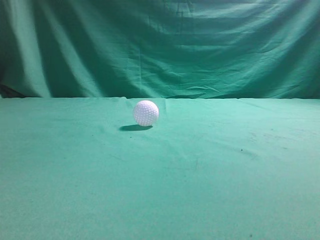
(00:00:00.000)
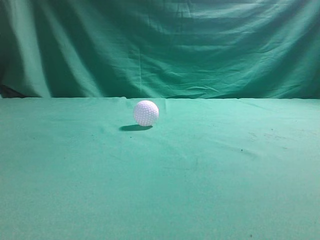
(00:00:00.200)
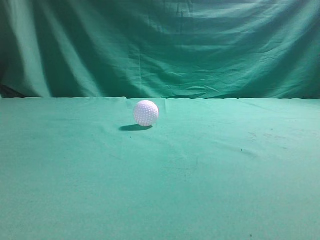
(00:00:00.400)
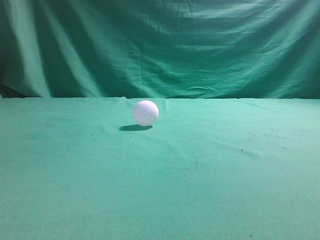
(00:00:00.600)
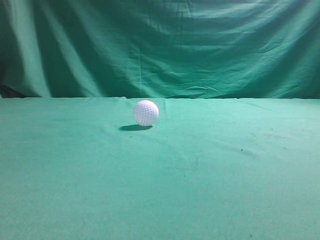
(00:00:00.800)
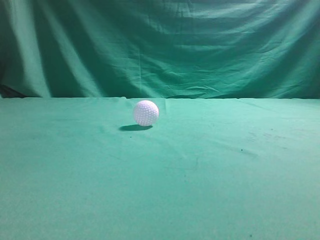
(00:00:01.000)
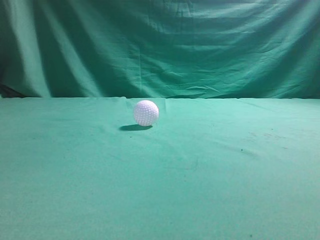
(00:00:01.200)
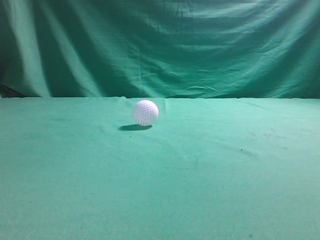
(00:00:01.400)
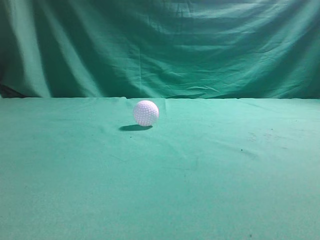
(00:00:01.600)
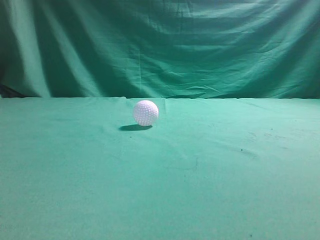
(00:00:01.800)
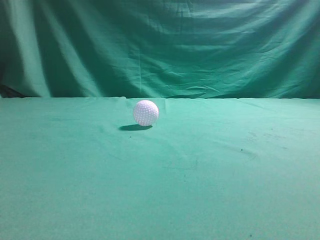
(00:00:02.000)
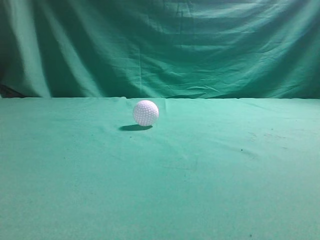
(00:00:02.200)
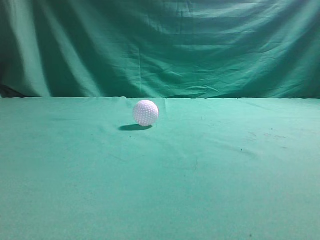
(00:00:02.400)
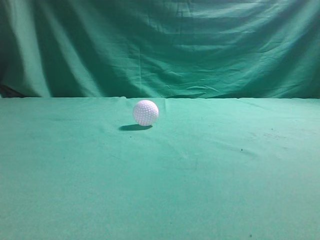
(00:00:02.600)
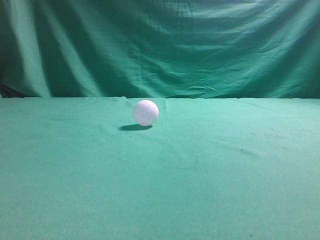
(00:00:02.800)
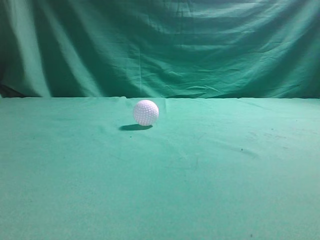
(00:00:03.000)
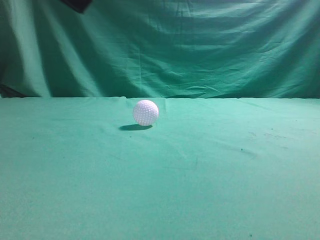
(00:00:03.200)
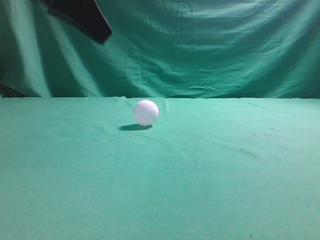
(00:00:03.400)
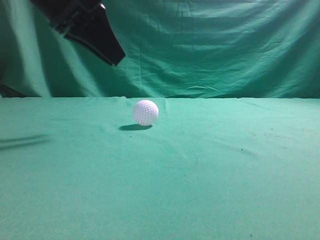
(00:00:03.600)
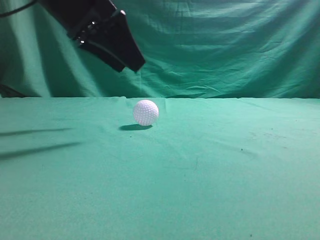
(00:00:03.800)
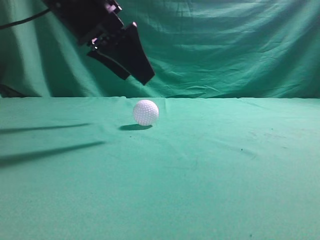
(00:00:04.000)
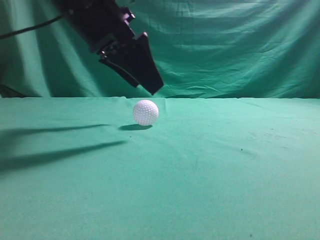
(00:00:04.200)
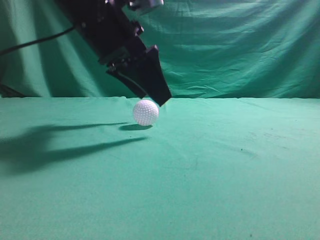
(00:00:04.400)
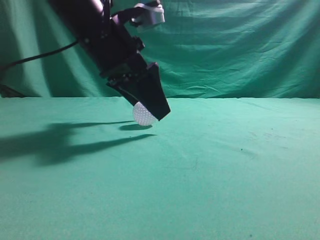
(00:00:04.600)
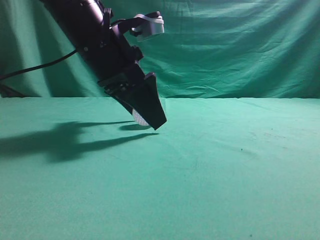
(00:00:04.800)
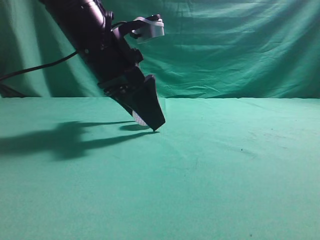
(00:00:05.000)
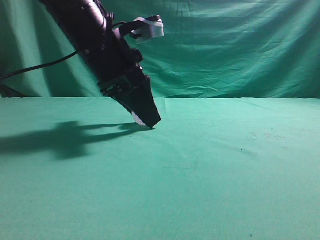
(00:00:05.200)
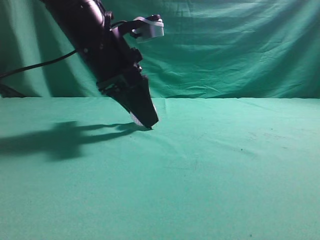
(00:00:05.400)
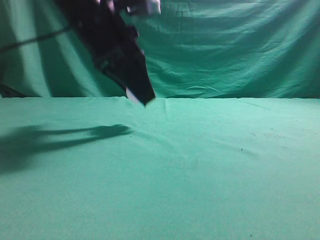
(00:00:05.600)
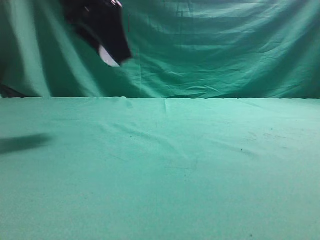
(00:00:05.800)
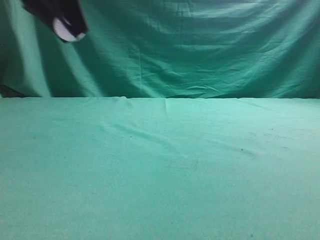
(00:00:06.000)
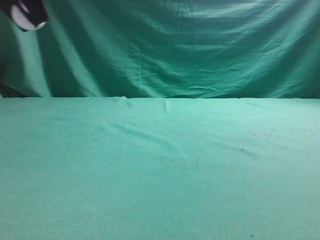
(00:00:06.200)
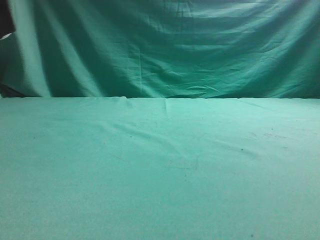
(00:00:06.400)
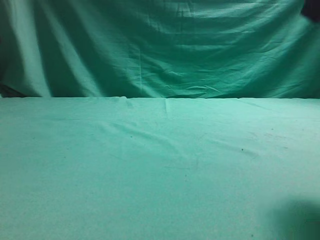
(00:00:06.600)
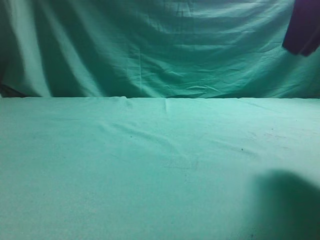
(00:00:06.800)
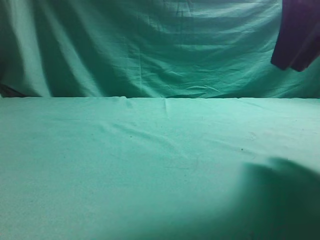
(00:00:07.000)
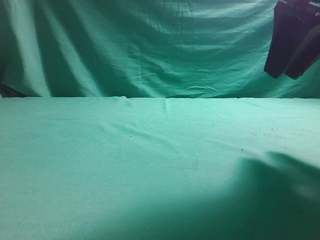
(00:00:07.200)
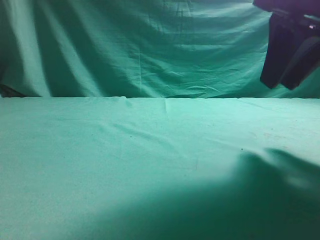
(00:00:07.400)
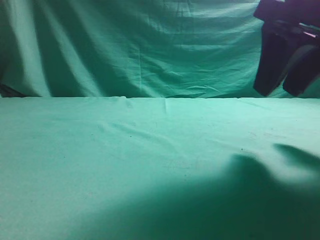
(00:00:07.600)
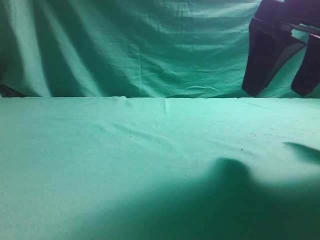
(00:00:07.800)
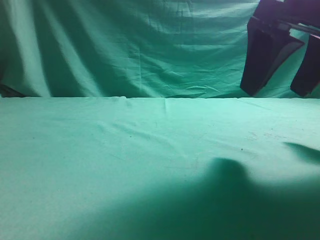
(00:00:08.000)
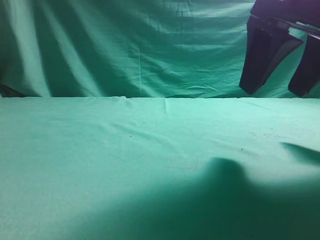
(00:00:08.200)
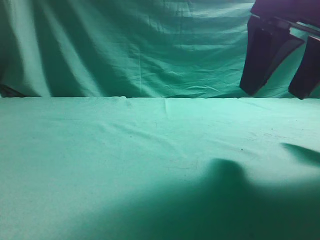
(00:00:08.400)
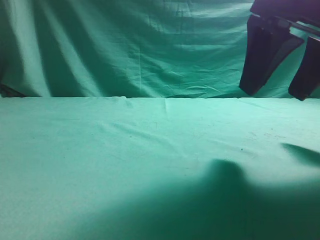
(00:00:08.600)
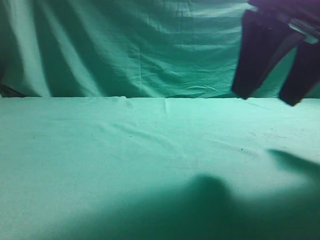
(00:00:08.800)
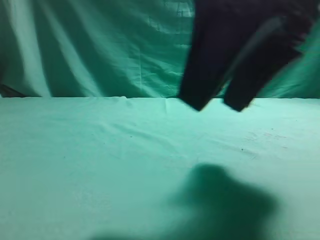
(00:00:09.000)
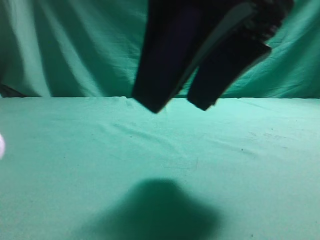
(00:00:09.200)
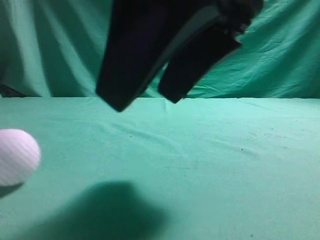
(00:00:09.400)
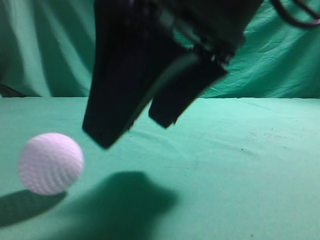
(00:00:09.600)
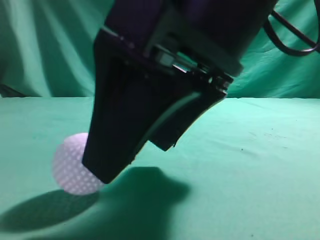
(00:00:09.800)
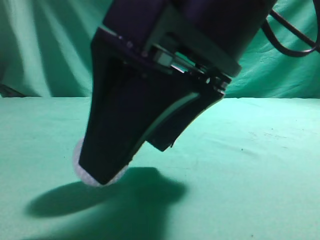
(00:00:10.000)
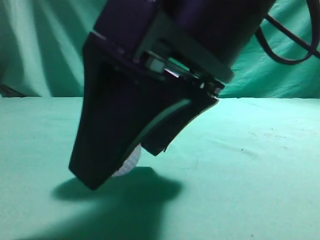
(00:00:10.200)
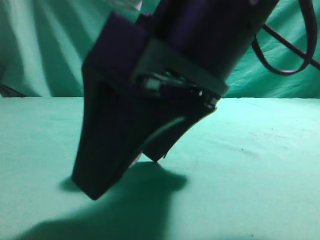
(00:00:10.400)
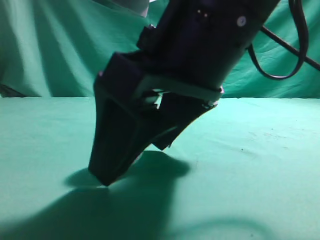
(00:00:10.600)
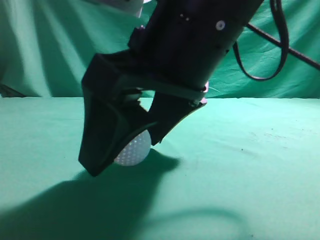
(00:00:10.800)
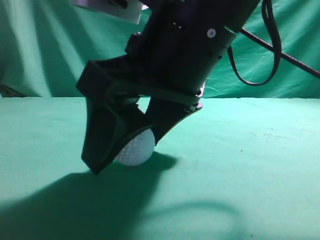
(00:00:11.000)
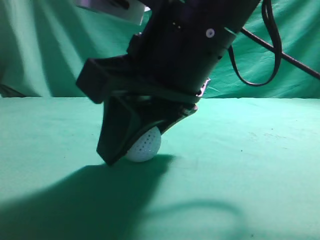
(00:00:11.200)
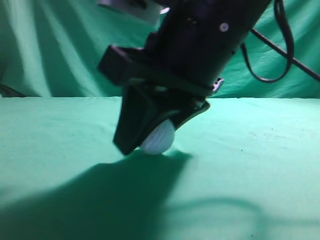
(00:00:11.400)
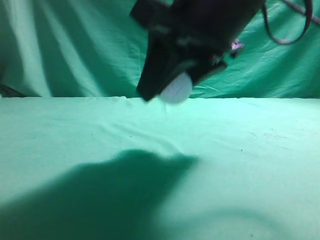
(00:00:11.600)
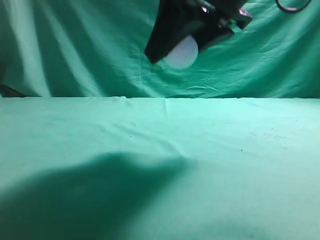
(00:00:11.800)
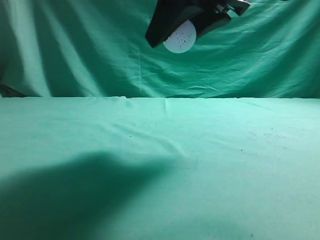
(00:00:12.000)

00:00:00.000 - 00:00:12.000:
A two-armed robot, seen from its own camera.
Task of the whole recording: pick up the ball and place it on the plate, then pick up the ball from the plate and put it in the center of the table.
Step, 00:00:00.000 - 00:00:05.600: Grab the spherical object with your left arm.
Step, 00:00:06.000 - 00:00:08.800: Place the sphere on the white object.
Step, 00:00:09.000 - 00:00:11.600: Grab the rolling spherical object.
00:00:03.000 - 00:00:04.400: The left gripper is displaced forward, to the right and downward by about 20 cm, and opens its fingers.
00:00:04.400 - 00:00:06.000: The left gripper heads to the left and upward, covering roughly 15 cm, and closes.
00:00:06.000 - 00:00:07.600: The right gripper is displaced forward, downward and to the left by approximately 20 cm, and opens its fingers. Meanwhile the left gripper goes roughly 20 cm to the left.
00:00:07.600 - 00:00:09.000: The left gripper opens, while the right gripper heads to the left and backward, covering roughly 10 cm.
00:00:09.000 - 00:00:10.400: The right gripper moves to the left, approximately 5 cm.
00:00:10.400 - 00:00:12.000: The left gripper closes. The right gripper travels upward and forward by approximately 10 cm, and closes its fingers.

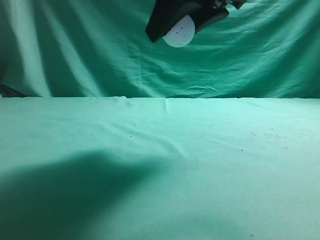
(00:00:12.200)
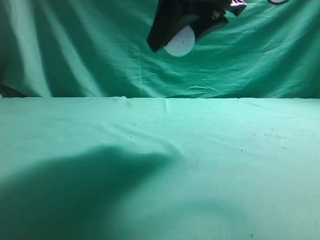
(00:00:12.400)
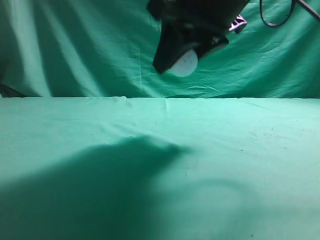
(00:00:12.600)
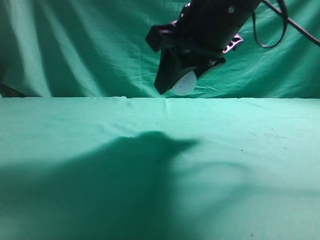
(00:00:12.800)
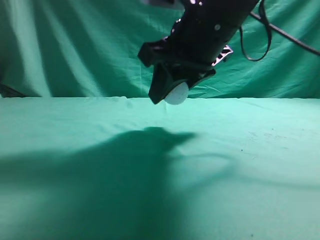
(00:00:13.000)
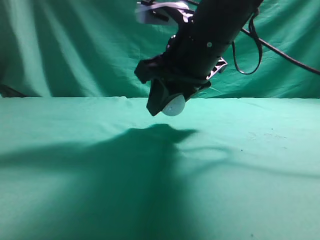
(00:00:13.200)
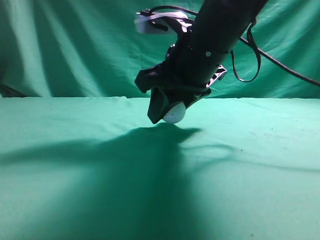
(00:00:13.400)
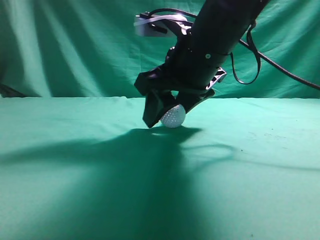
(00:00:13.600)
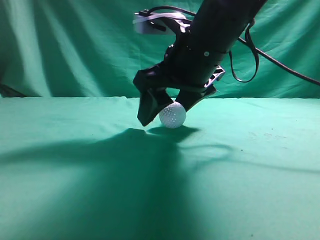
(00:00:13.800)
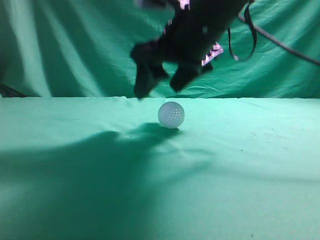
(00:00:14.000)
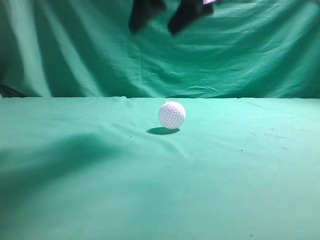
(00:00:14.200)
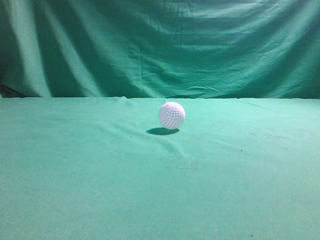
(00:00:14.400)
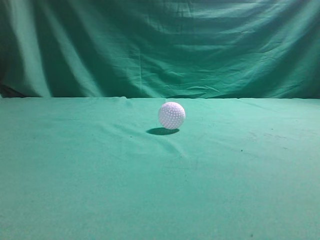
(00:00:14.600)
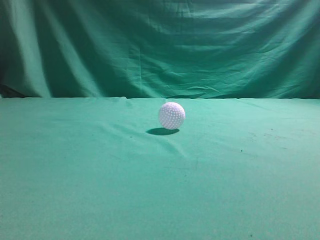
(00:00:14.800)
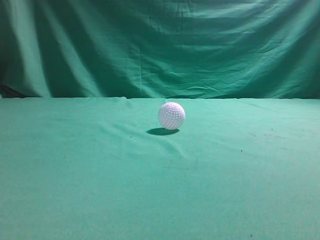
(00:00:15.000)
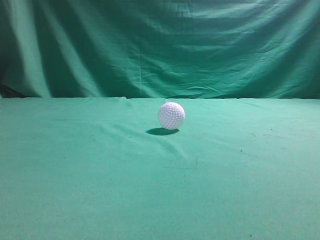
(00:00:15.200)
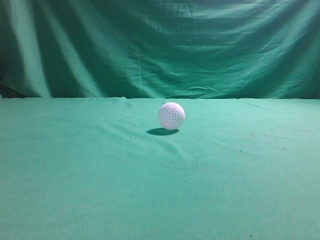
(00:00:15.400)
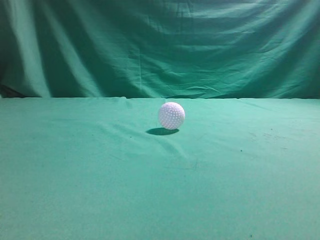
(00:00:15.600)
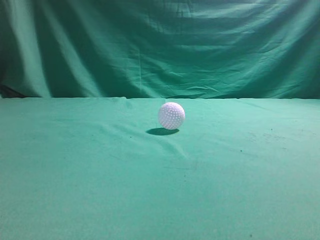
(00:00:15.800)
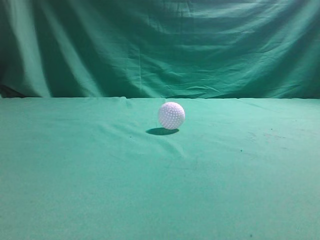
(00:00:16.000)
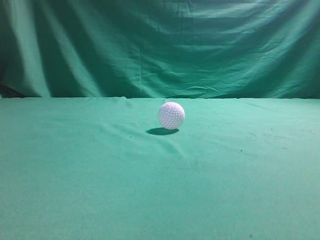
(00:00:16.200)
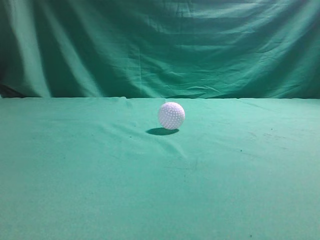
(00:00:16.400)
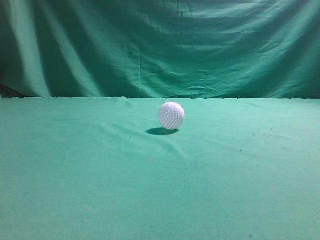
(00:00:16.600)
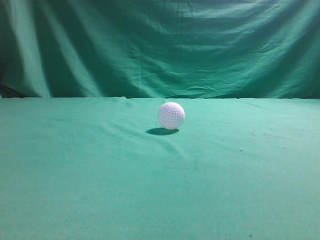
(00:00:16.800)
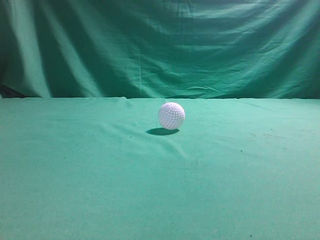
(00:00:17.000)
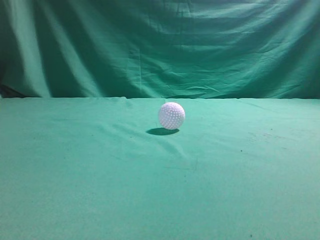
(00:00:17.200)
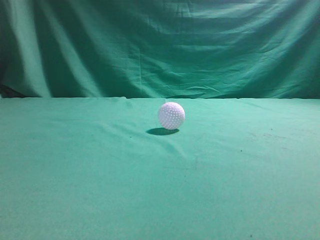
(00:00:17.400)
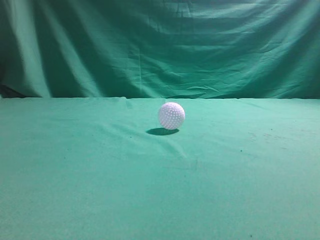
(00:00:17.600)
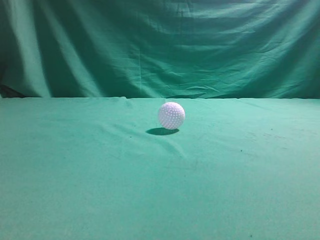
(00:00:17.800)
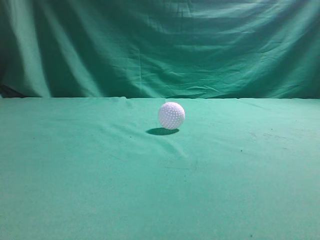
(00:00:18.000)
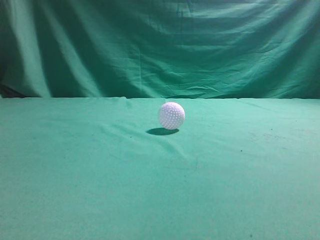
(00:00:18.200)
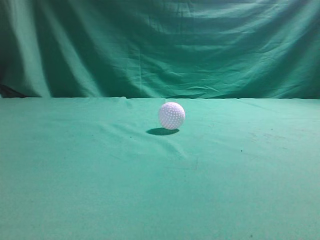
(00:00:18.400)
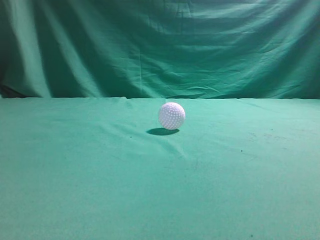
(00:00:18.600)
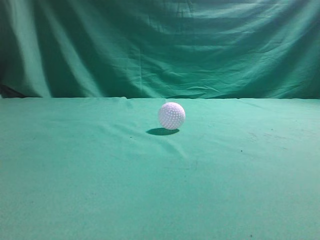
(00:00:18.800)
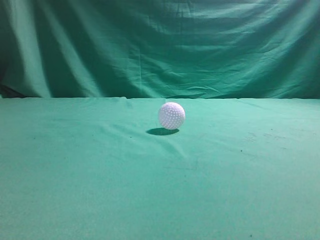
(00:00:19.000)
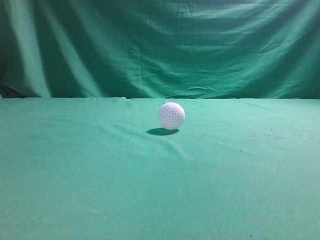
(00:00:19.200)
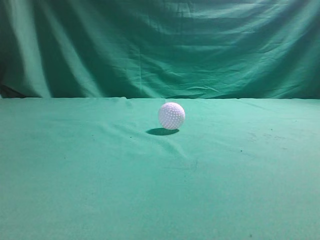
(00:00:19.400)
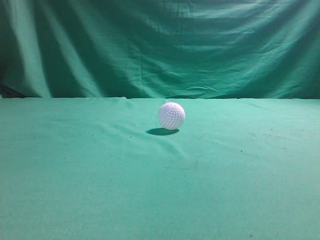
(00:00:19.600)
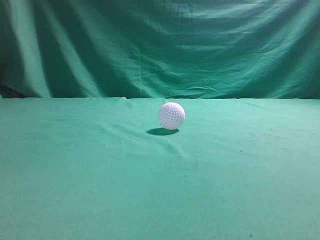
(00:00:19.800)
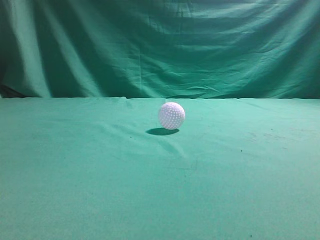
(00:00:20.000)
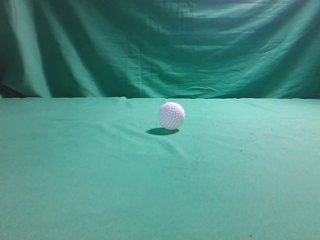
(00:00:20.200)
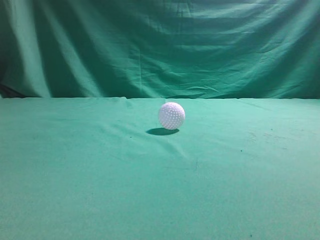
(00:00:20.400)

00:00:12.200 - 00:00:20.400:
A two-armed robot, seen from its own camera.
Task of the whole recording: pick up the ball and place it on the plate, then pick up the ball from the plate and put it in the center of the table.
Step, 00:00:12.200 - 00:00:14.000: Put the picked-up object on the table.
00:00:12.200 - 00:00:13.800: The left gripper heads to the right and backward, covering about 10 cm, while the right gripper shifts approximately 10 cm downward and forward.
00:00:13.800 - 00:00:15.400: The right gripper travels backward, to the right and upward by approximately 35 cm, and closes up. The left gripper is displaced backward by roughly 15 cm.
